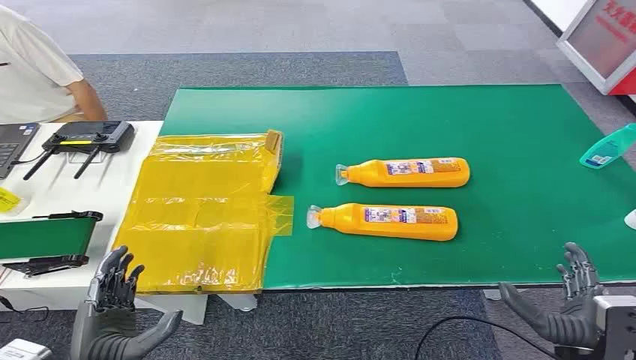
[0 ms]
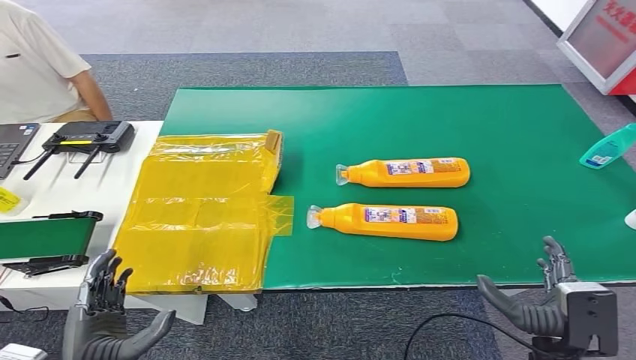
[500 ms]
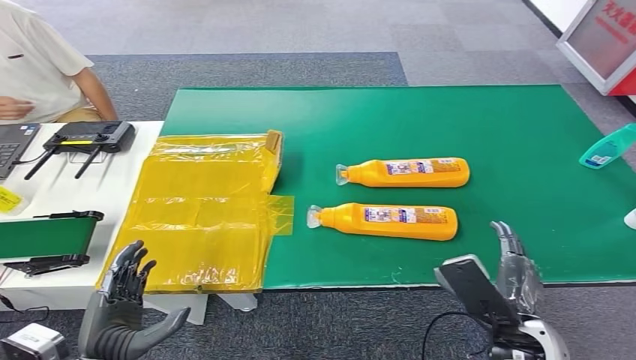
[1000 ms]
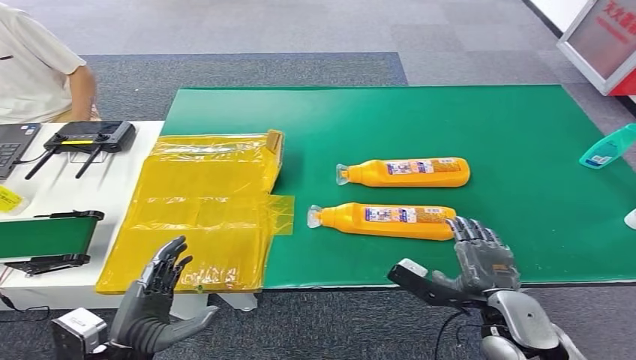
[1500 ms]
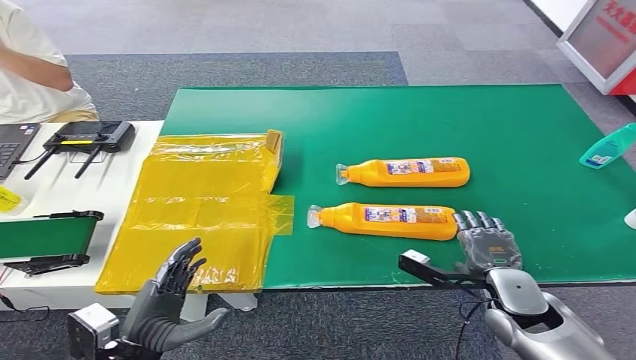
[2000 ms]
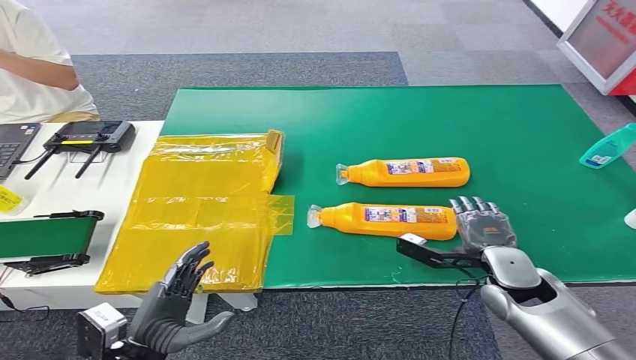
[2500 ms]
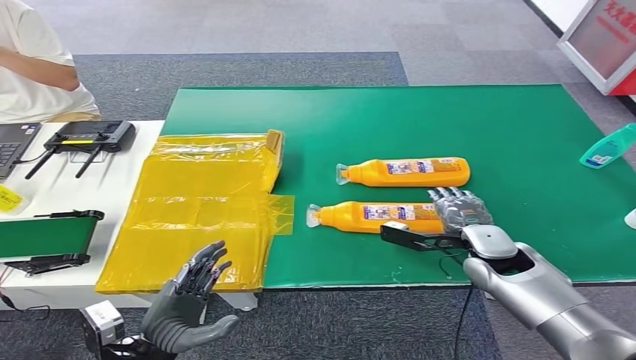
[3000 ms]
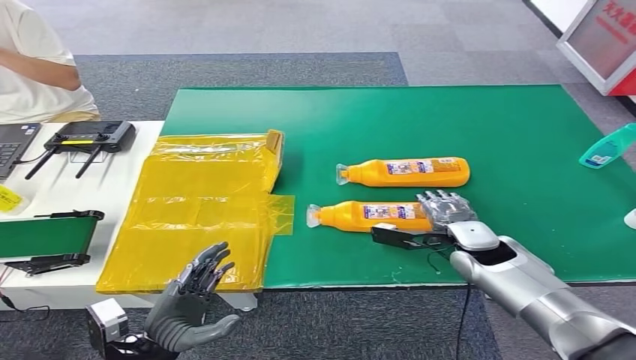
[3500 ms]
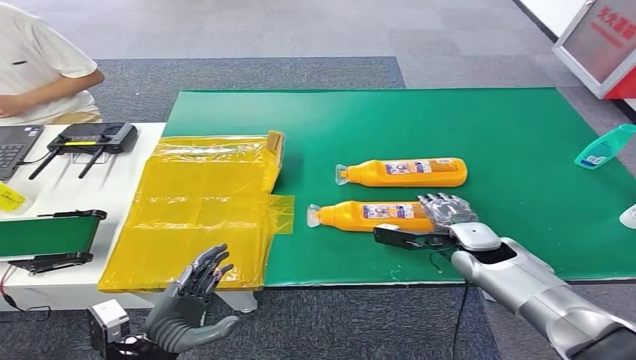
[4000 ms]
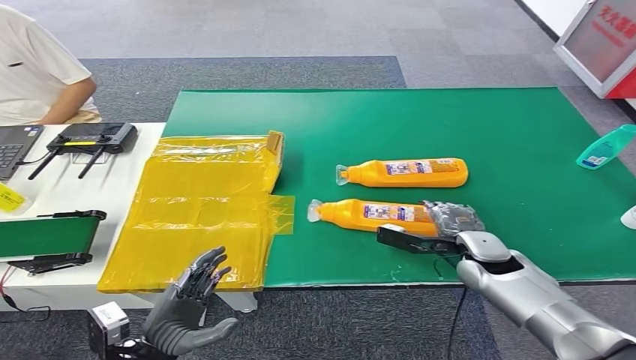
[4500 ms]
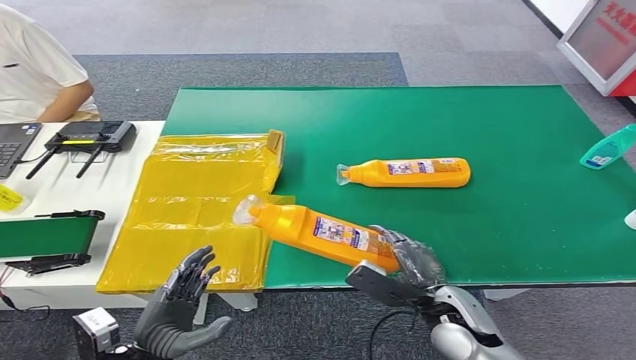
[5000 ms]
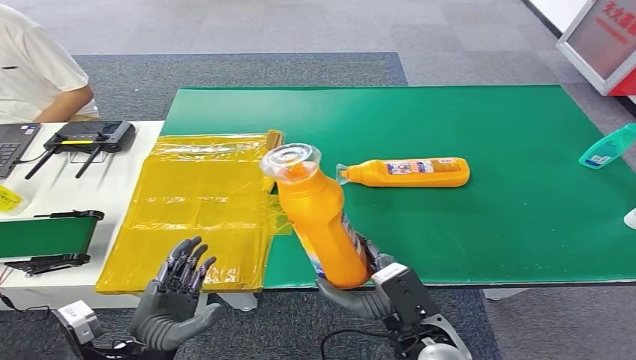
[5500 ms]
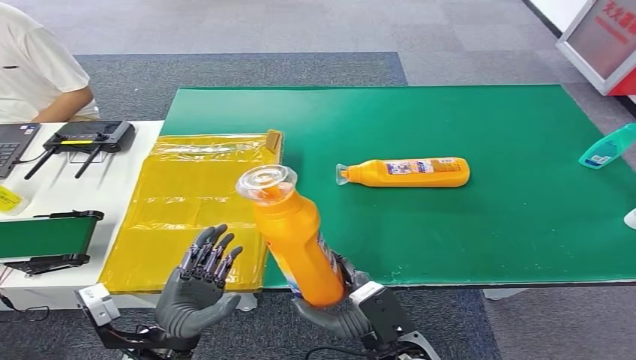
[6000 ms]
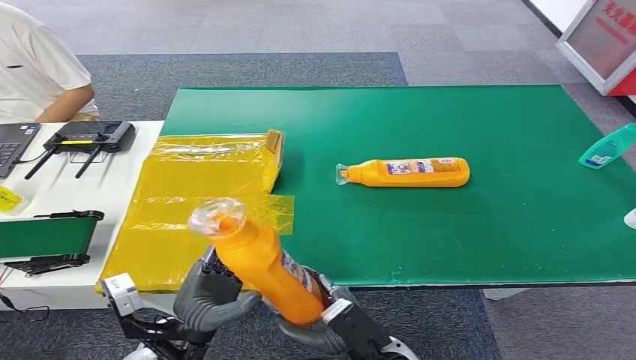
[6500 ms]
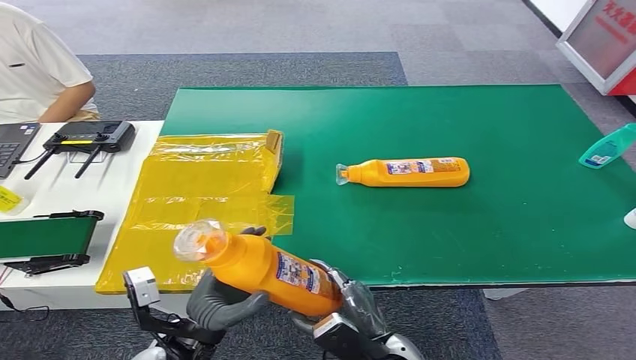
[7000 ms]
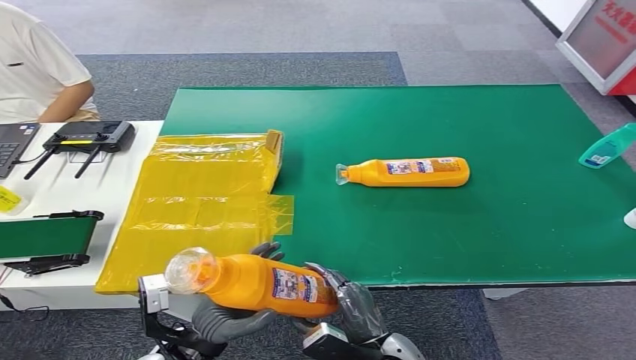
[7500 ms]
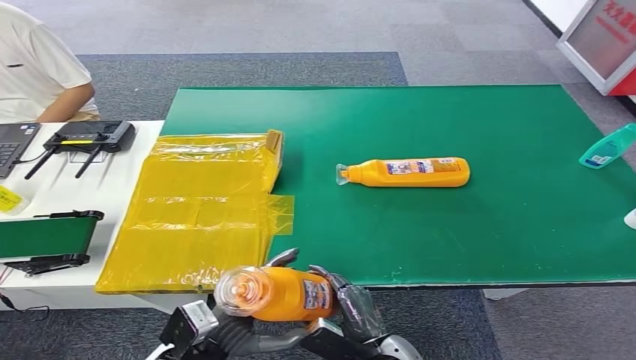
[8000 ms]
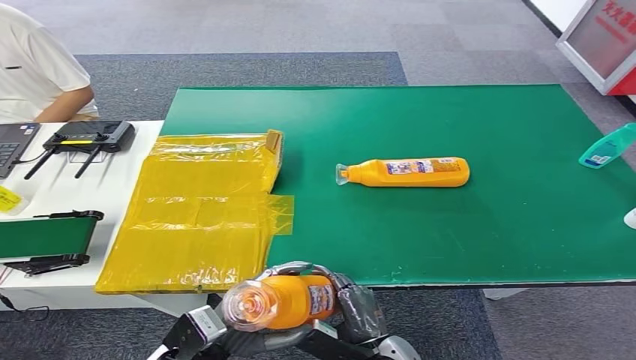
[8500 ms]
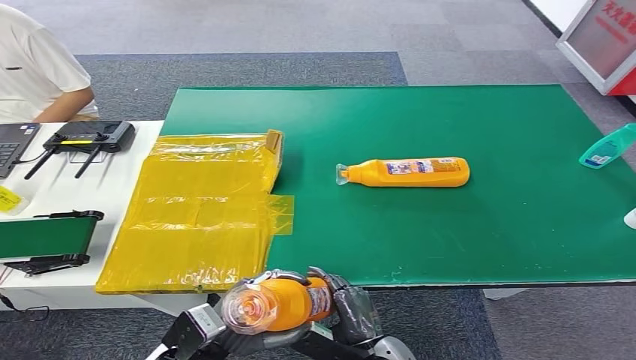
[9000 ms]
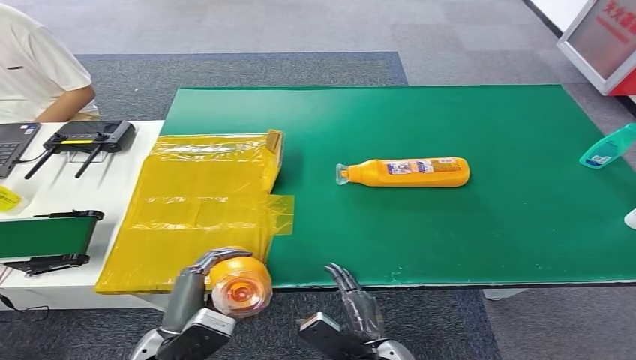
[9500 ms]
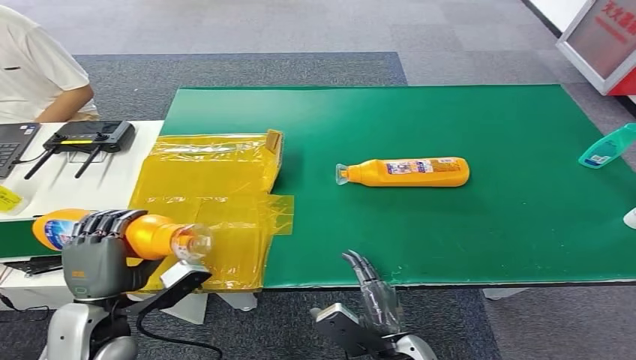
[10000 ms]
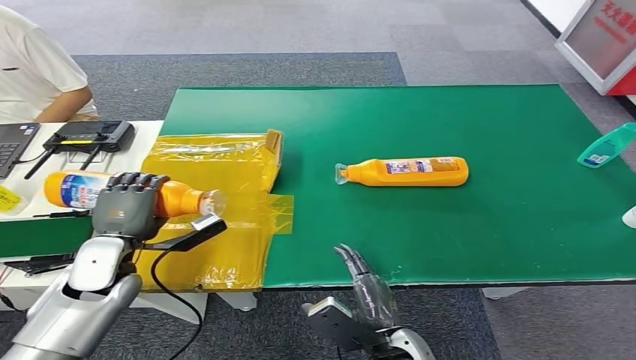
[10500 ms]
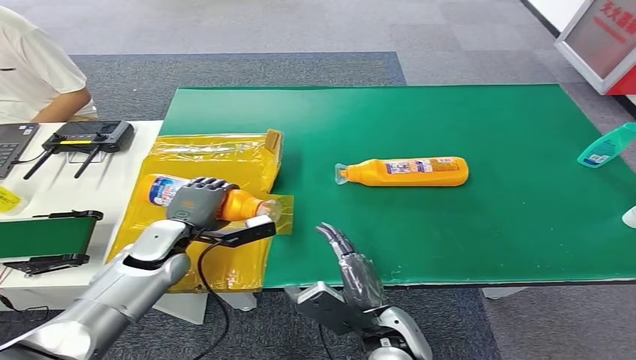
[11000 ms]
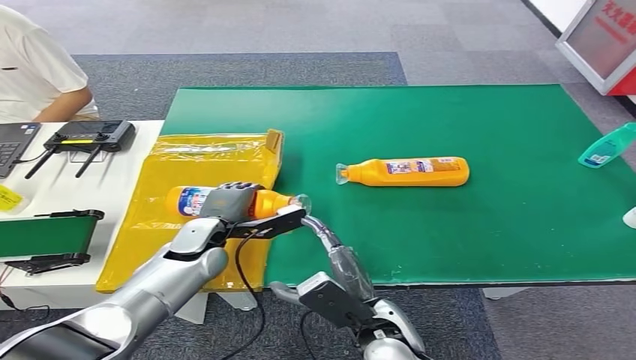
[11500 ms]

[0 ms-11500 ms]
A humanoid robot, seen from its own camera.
Step, 0 ms to 5500 ms: Pick up the bottle from the table.
Step, 6000 ms to 11500 ms: Turn the bottle to the front side.
9500 ms to 11500 ms: The left hand moves forward, about 20 cm, while the right hand travels upward and forward by some 10 cm.
